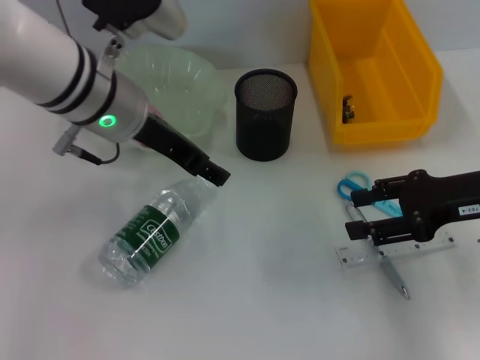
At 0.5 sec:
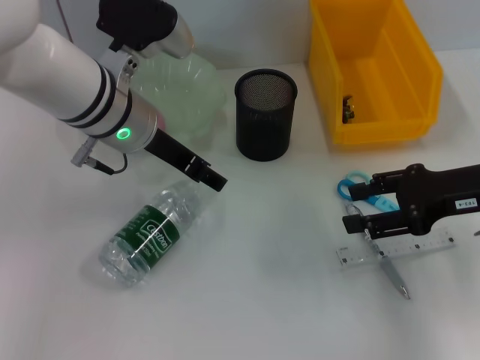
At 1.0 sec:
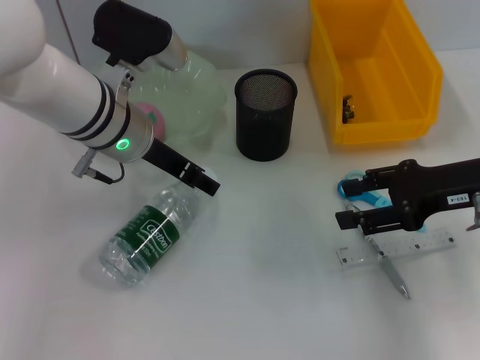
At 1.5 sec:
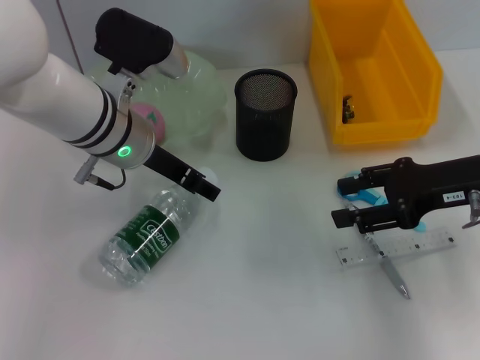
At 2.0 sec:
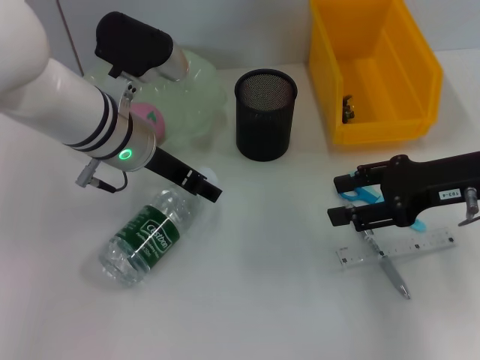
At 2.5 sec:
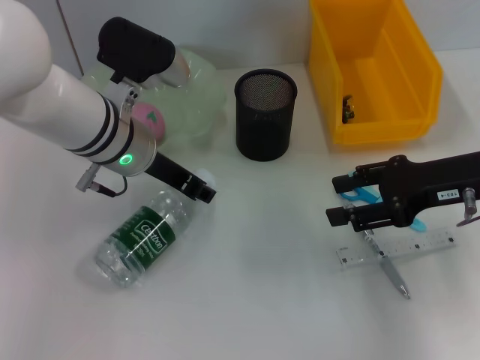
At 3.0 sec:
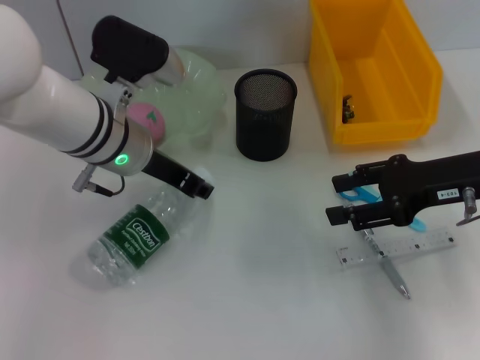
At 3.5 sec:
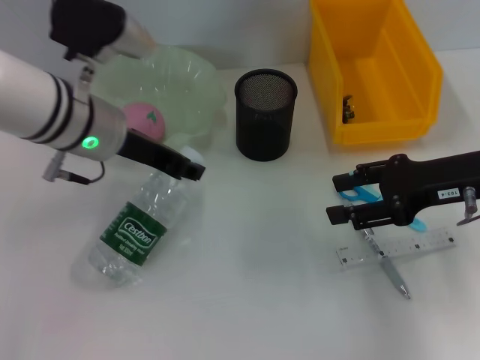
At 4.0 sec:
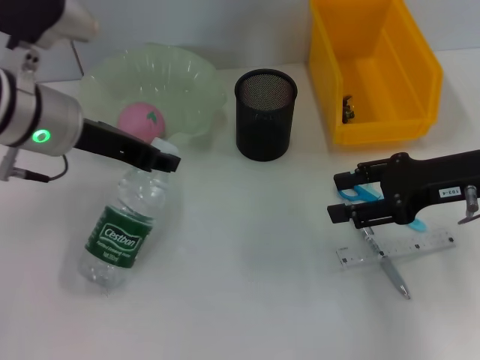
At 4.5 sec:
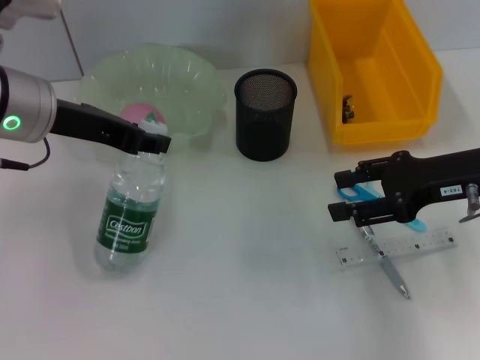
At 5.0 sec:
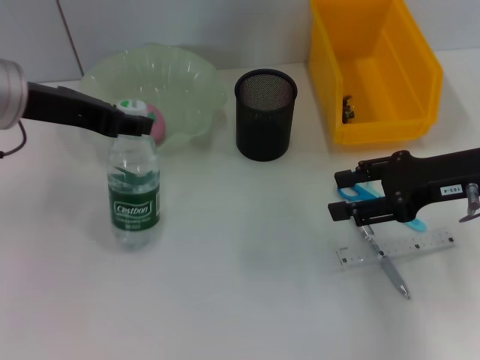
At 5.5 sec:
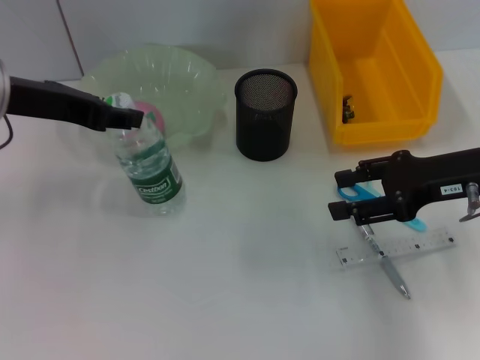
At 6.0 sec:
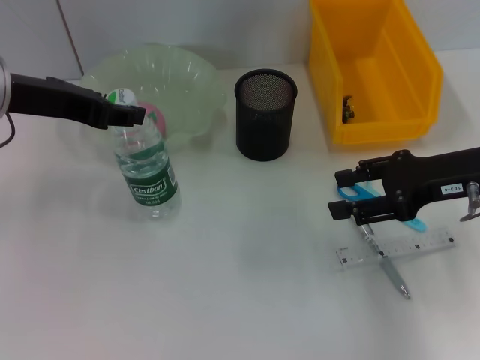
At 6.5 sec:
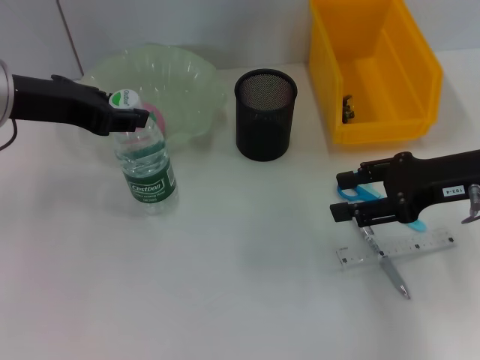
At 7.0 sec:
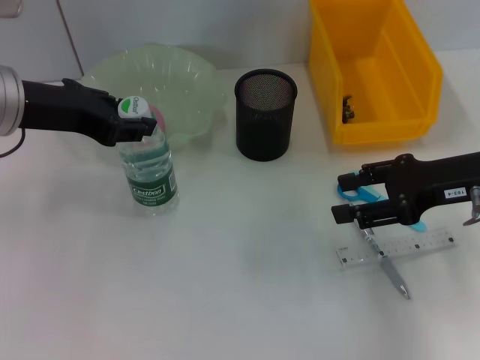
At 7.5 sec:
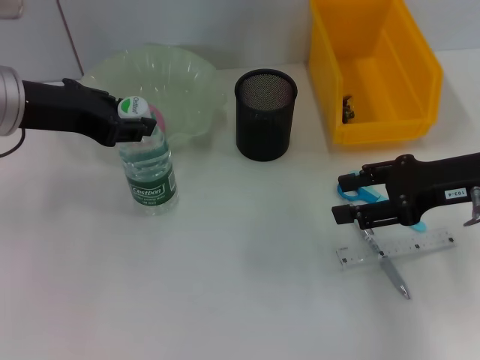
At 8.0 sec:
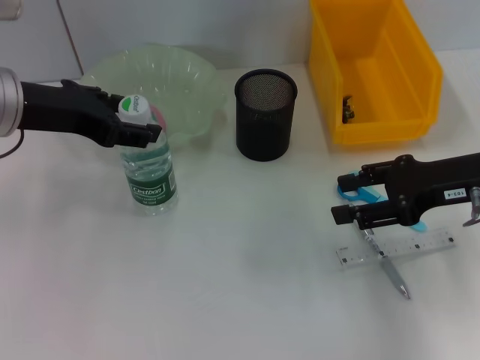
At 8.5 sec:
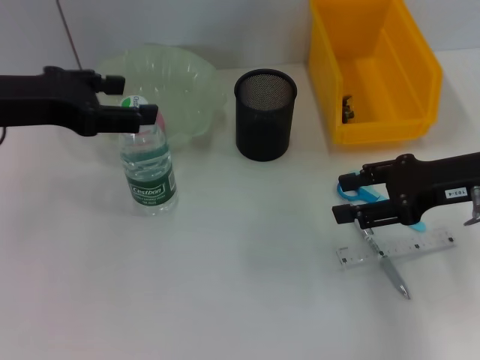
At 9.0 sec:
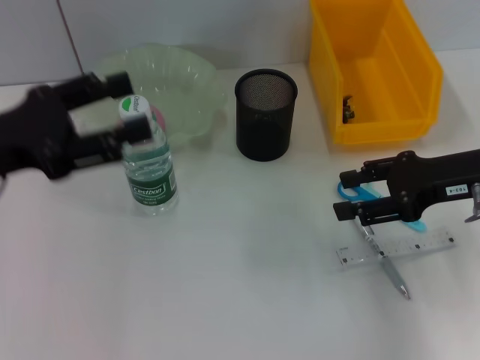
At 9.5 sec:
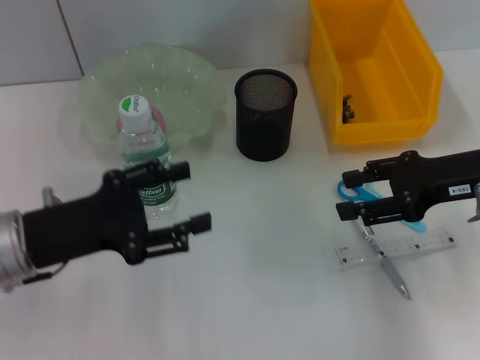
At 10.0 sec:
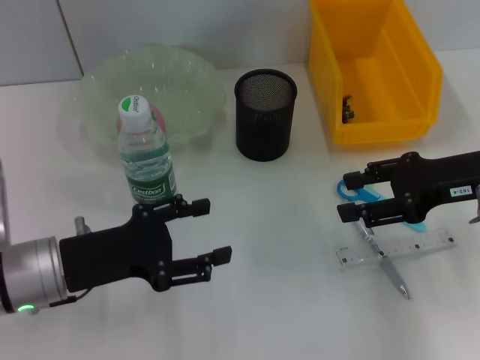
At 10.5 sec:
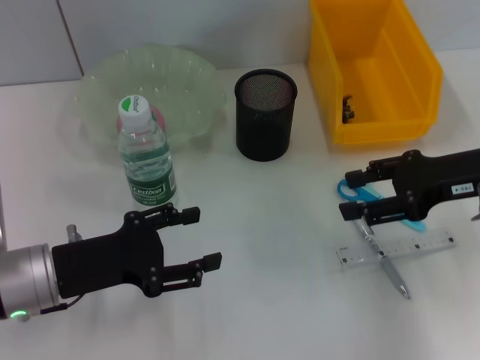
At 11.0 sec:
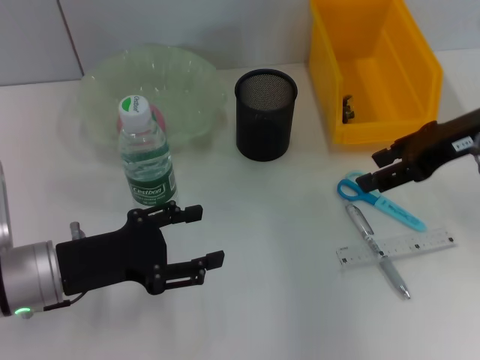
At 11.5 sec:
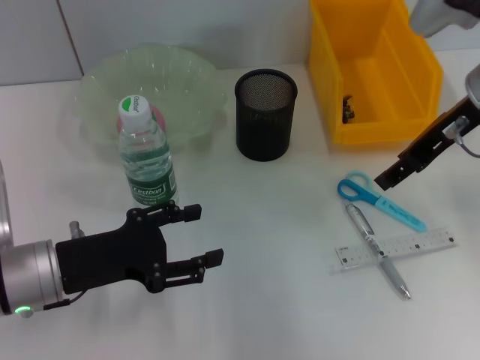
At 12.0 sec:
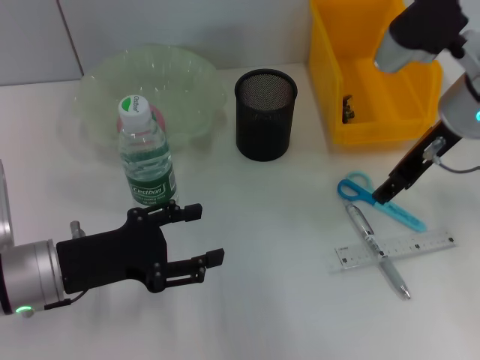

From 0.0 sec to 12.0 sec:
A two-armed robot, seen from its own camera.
Step, from 0.0 sec to 2.5 sec: Grab the water bottle with the left hand.
Step, from 3.0 sec to 7.5 sec: Place the water bottle on the table with the left hand.
From 0.0 sec to 2.0 sec: The left gripper goes about 5 cm downward.
From 2.0 sec to 4.0 sec: The left gripper travels to the left by roughly 5 cm, and closes up.
From 4.0 sec to 6.0 sec: The left gripper ends up approximately 5 cm from where it was.
From 6.0 sec to 8.0 sec: The grippers move only a little.
From 8.0 sec to 10.0 sec: The left gripper is displaced downward and backward by some 15 cm, and opens its fingers.
From 10.0 sec to 12.0 sec: The right gripper moves forward and to the left, roughly 10 cm.

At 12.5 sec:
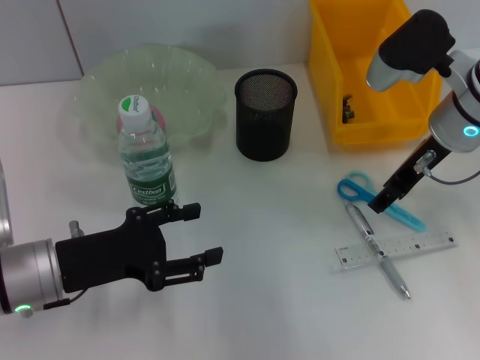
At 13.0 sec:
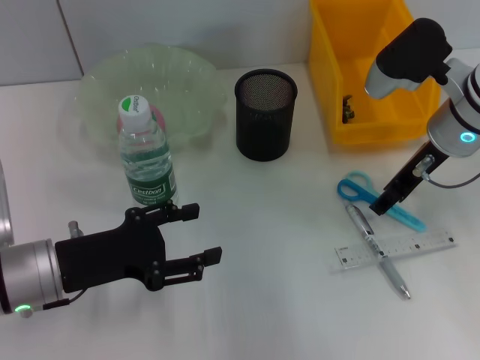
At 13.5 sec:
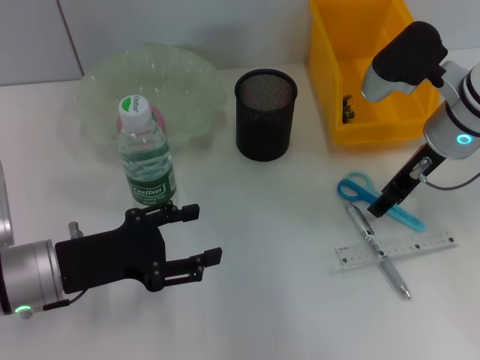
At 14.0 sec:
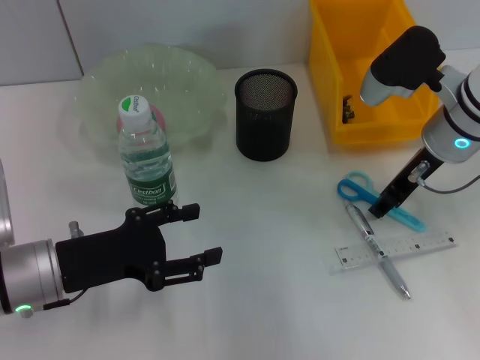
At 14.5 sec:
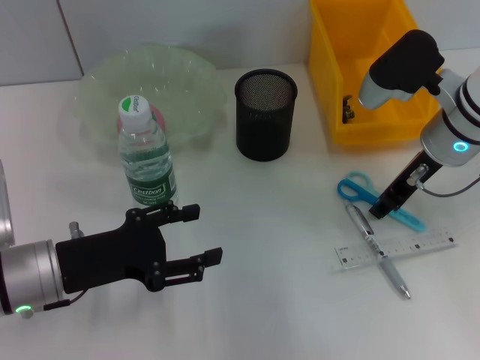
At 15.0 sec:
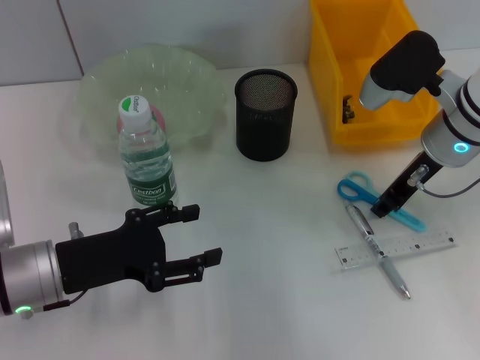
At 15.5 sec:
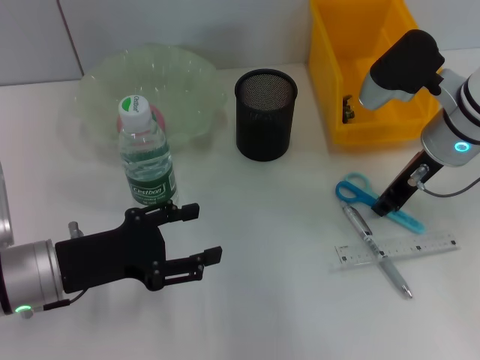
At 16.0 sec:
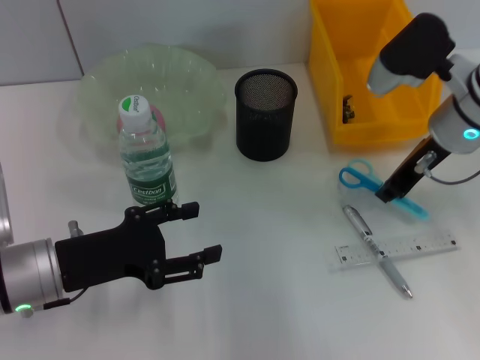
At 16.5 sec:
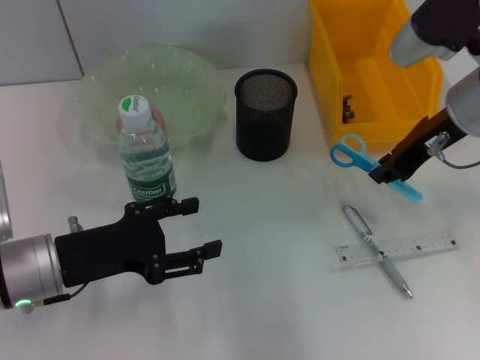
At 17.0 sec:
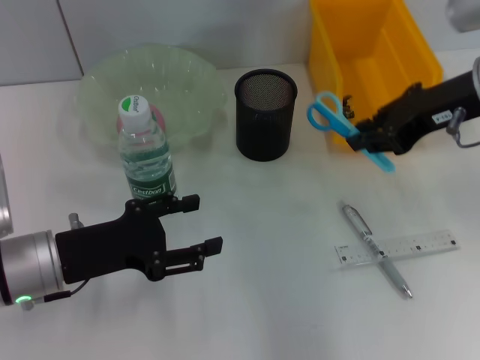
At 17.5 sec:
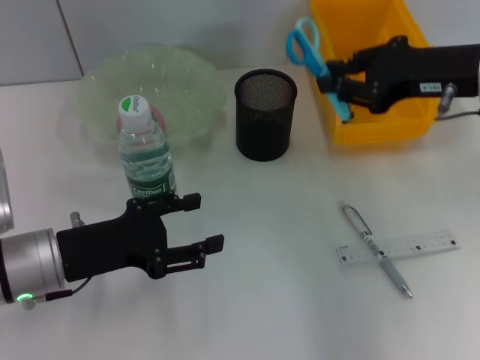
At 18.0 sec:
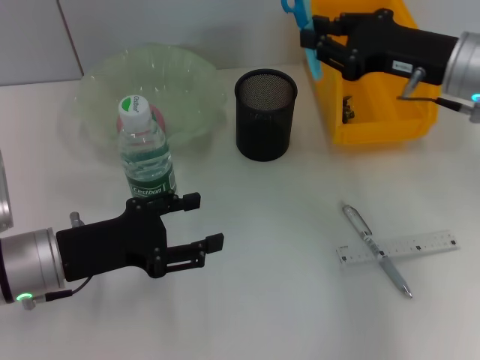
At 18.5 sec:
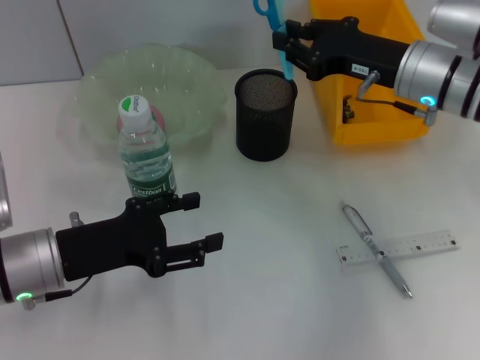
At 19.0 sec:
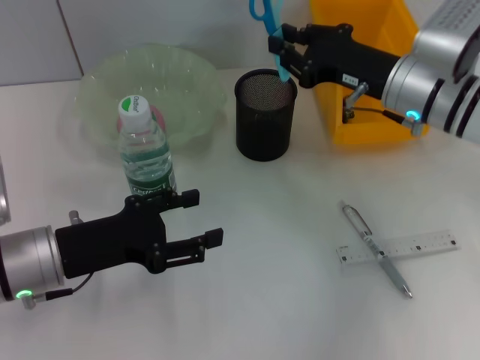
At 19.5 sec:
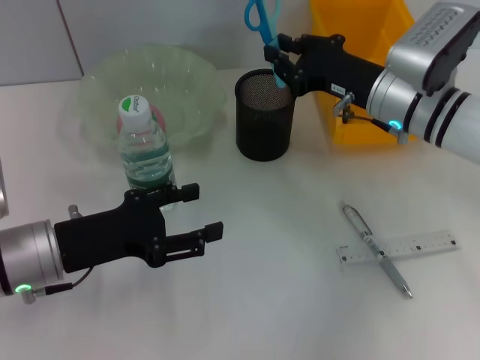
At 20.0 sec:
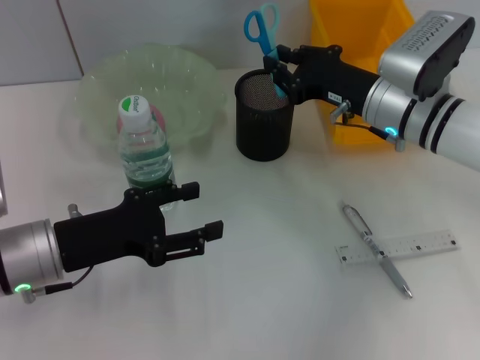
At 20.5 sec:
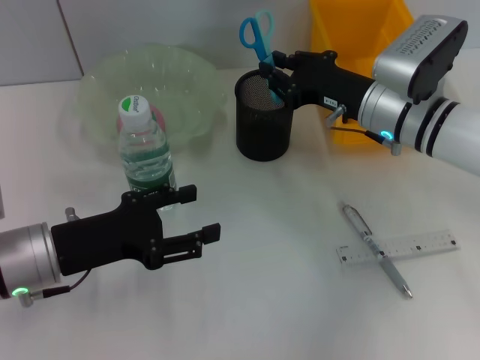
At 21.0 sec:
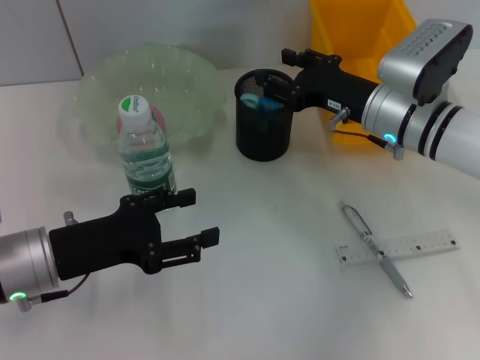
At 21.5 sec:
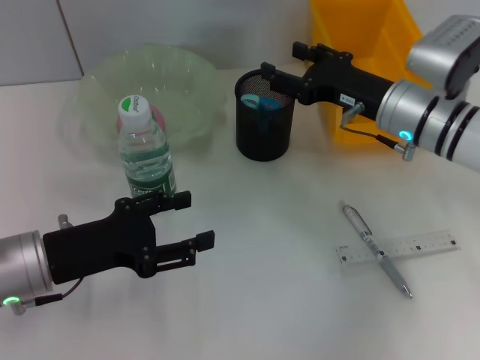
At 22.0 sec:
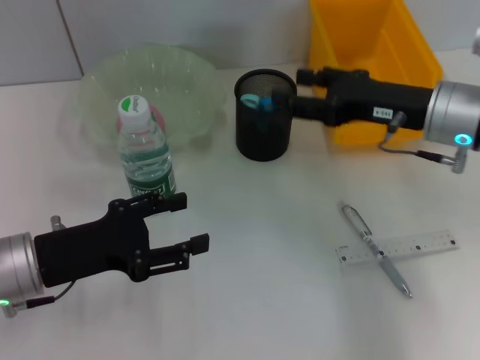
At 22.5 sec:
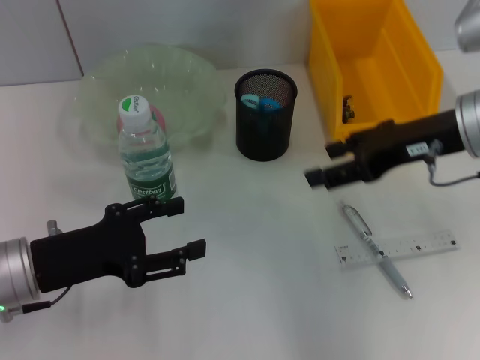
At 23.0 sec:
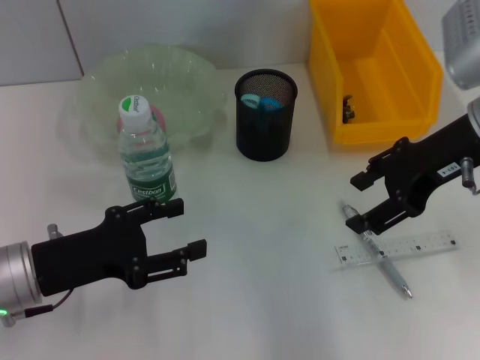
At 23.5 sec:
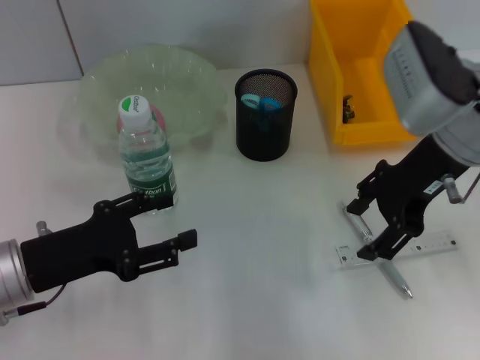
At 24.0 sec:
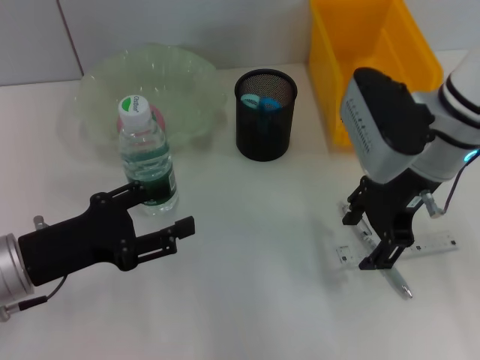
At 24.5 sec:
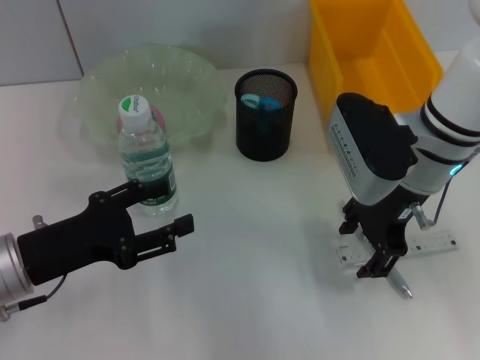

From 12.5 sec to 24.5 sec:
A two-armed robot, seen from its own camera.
Step, from 12.5 sec to 15.5 sec: Grab the blue scissors with the right hand.
Step, from 16.0 sec to 21.0 sec: Place the blue scissors into the pen holder with the right hand.
From 12.5 sec to 14.5 sec: The right gripper closes up.
From 14.5 sec to 16.5 sec: The right gripper moves upward, roughly 5 cm.
From 16.5 sec to 18.5 sec: The right gripper ends up approximately 5 cm from where it was.
From 18.5 sec to 20.5 sec: The right gripper shifts by approximately 5 cm.
From 20.5 sec to 22.5 sec: The right gripper moves upward and backward, some 10 cm, and opens.
From 22.5 sec to 24.5 sec: The right gripper travels to the left by about 5 cm.

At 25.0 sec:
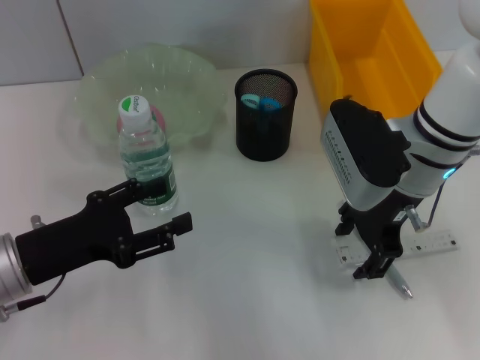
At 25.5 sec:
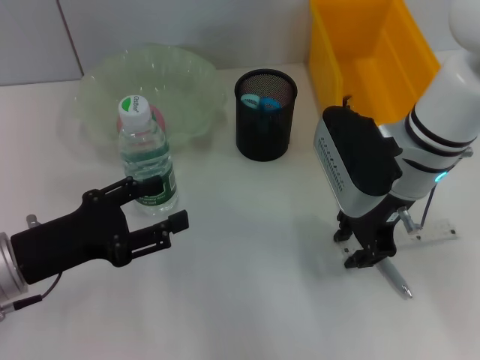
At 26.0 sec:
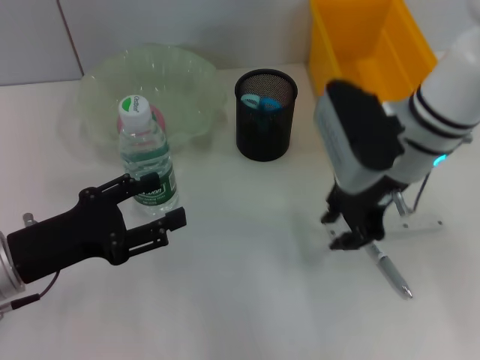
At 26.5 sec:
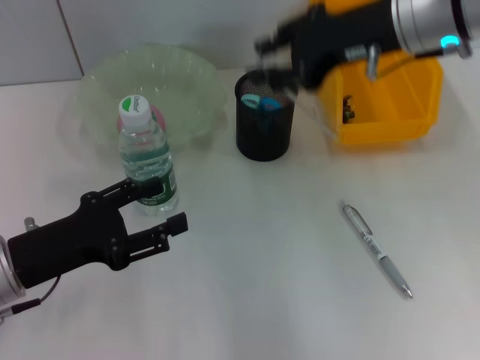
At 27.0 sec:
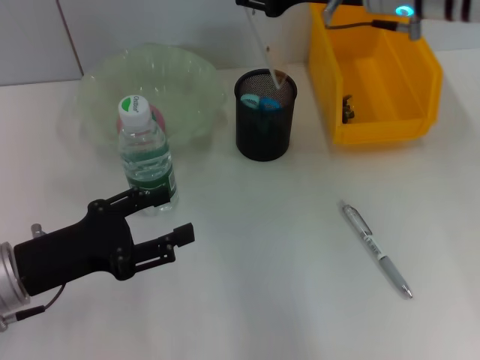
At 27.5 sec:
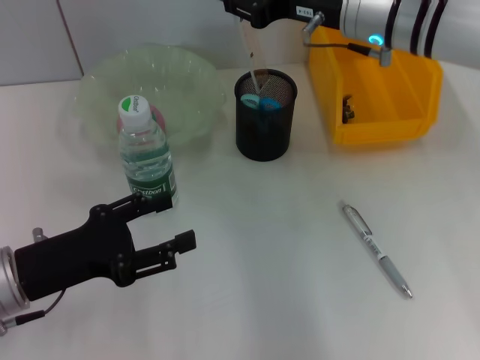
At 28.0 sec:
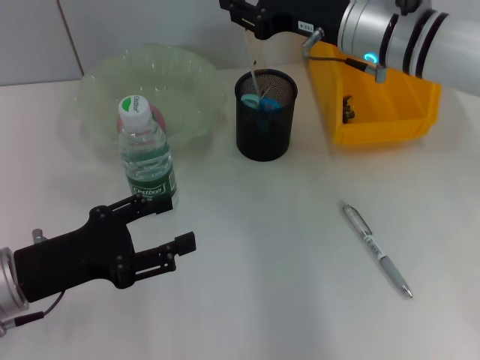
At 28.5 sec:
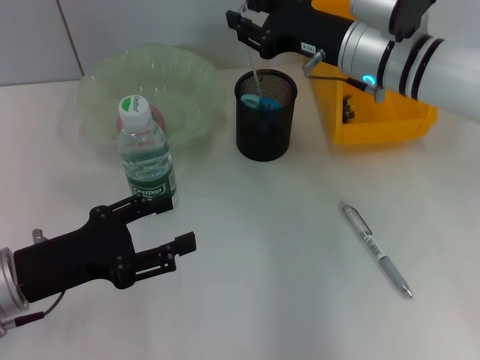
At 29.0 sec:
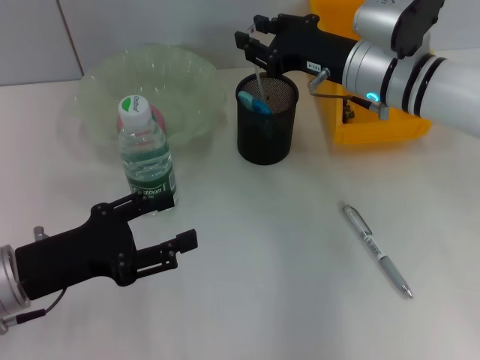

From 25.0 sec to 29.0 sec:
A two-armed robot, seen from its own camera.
From 25.0 sec to 27.0 sec: The right gripper goes some 10 cm upward and forward, and closes up.
From 27.0 sec to 29.0 sec: The right gripper travels downward by approximately 10 cm.
